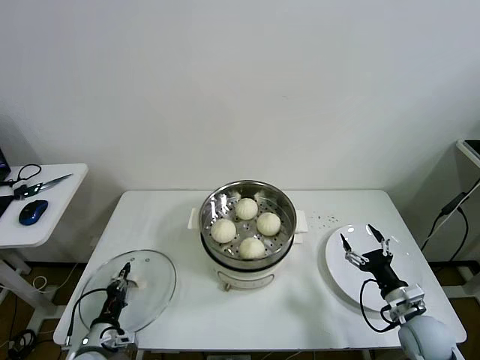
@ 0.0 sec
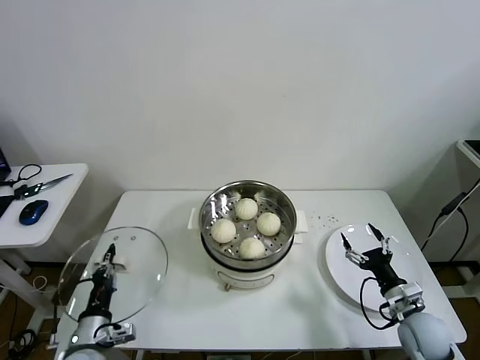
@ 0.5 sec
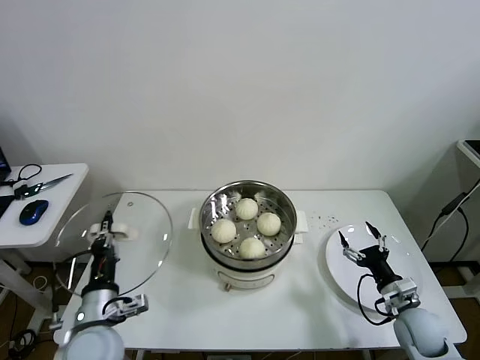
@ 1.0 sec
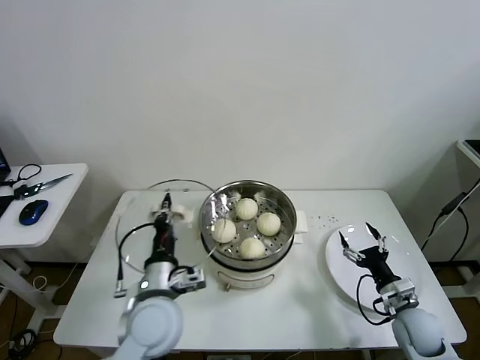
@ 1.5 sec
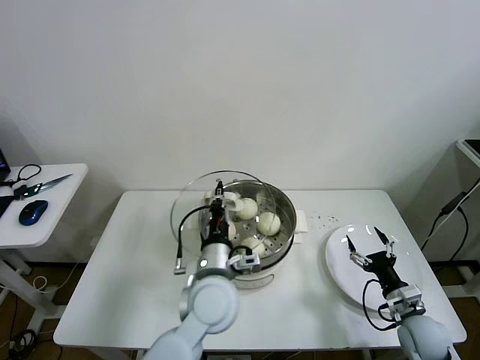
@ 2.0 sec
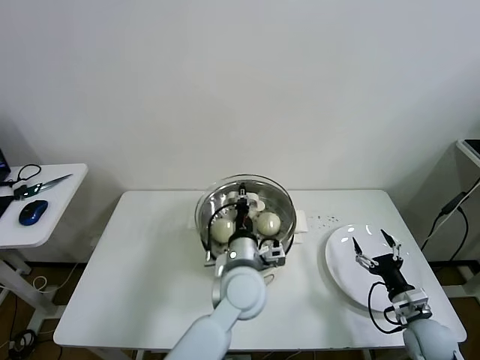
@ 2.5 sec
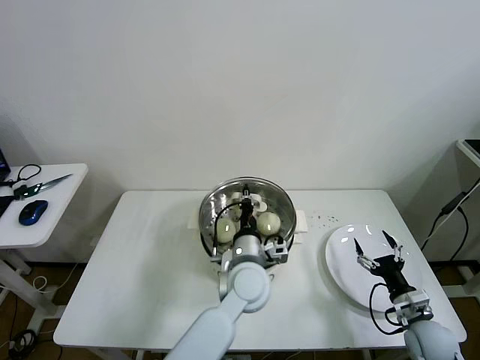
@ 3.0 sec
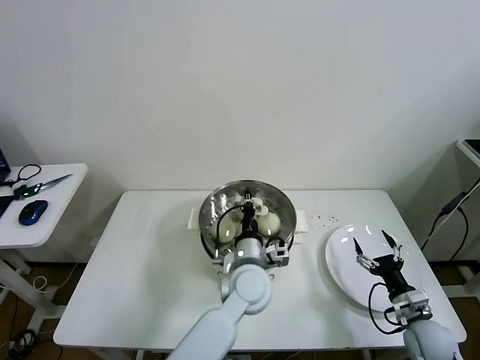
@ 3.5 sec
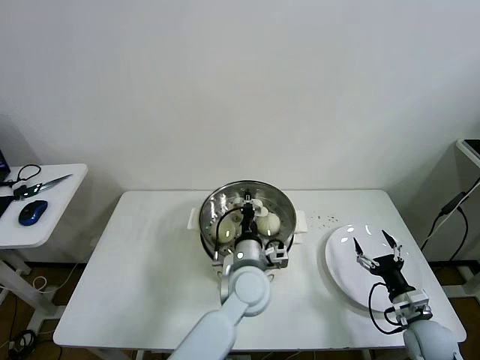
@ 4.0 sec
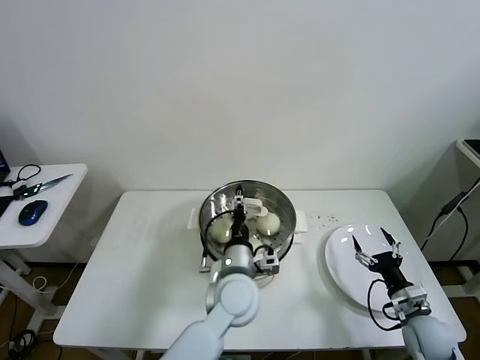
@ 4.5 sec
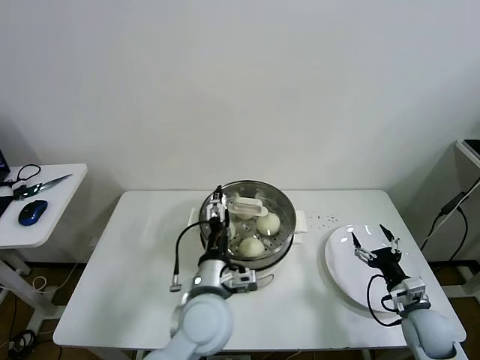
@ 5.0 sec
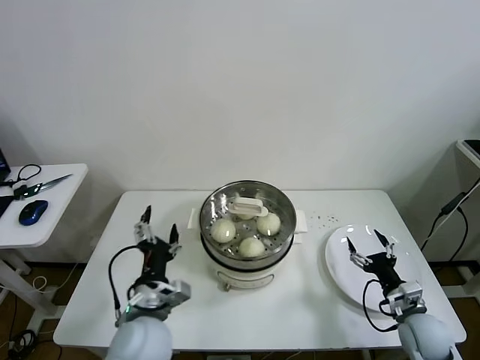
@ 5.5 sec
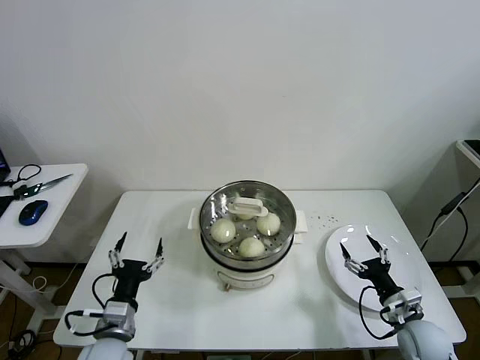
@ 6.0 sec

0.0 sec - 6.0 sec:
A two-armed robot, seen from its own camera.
Task of the whole recording: take steamed baozi put them in steamer then cover it.
Step, 0.0 sec - 4.5 sec: Place the pot lid on the steamer with left gripper.
0.0 sec - 2.0 sec: The left gripper heads to the right and upward, covering about 35 cm.
2.0 sec - 4.0 sec: The left gripper moves to the right and downward, approximately 10 cm.
4.0 sec - 6.0 sec: The left gripper shifts about 30 cm to the left and backward, and opens its fingers.
